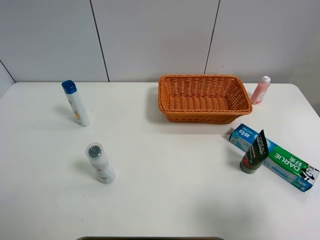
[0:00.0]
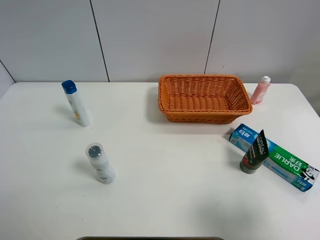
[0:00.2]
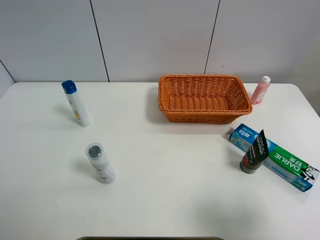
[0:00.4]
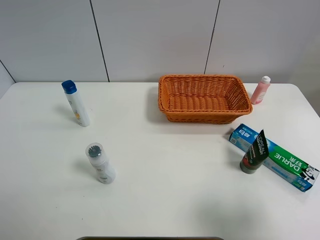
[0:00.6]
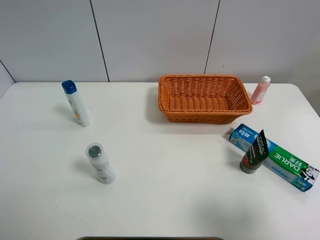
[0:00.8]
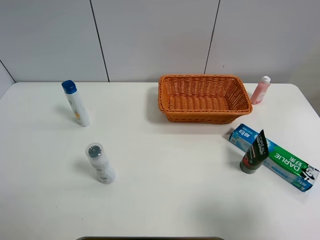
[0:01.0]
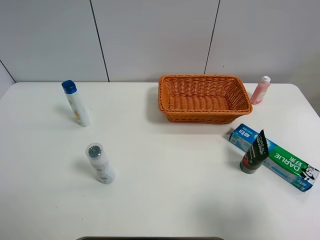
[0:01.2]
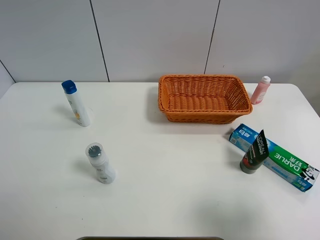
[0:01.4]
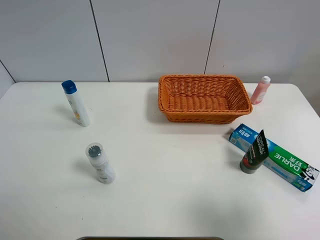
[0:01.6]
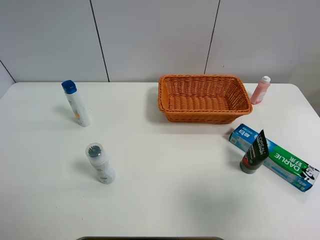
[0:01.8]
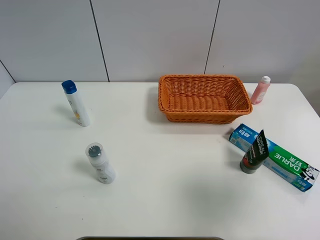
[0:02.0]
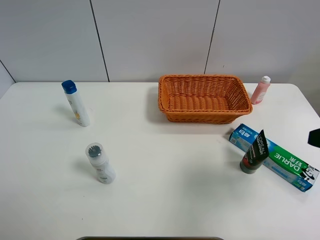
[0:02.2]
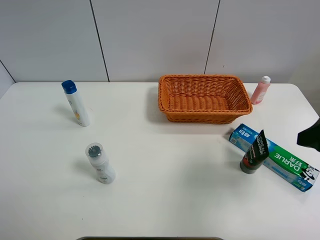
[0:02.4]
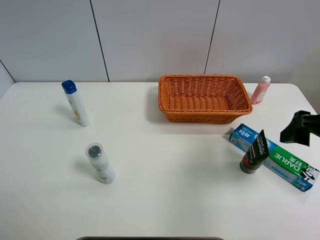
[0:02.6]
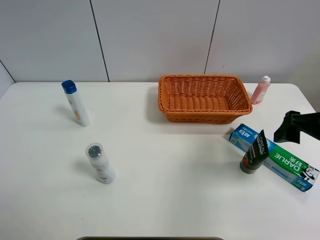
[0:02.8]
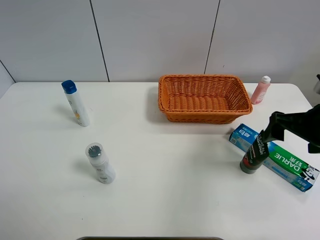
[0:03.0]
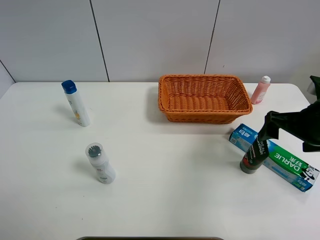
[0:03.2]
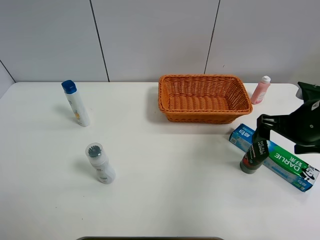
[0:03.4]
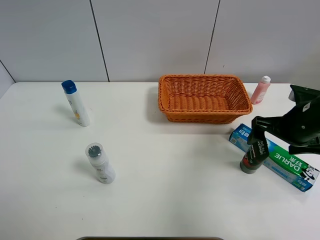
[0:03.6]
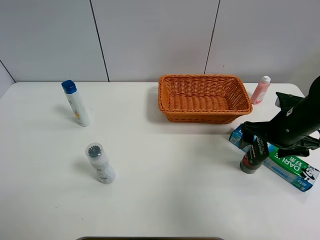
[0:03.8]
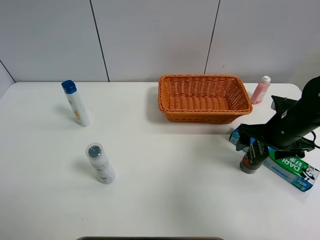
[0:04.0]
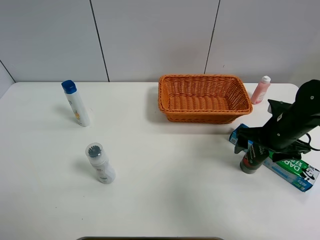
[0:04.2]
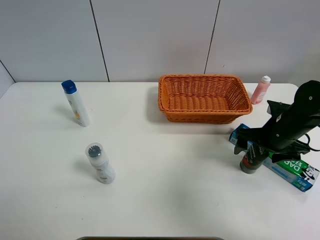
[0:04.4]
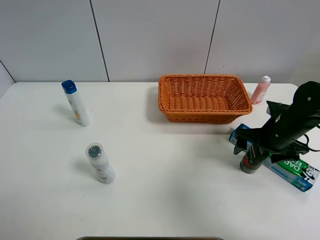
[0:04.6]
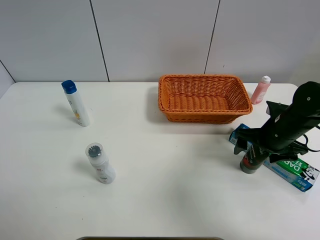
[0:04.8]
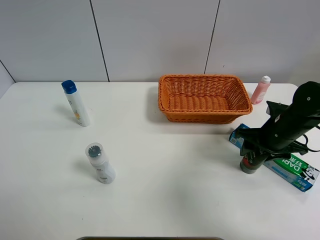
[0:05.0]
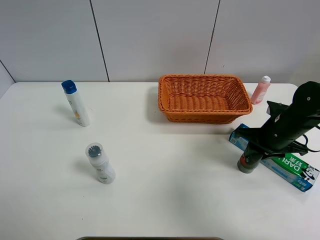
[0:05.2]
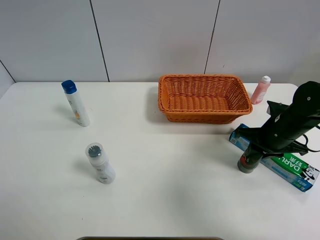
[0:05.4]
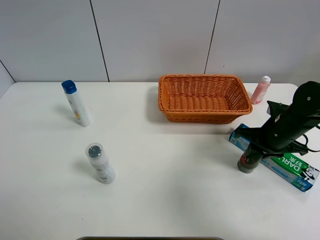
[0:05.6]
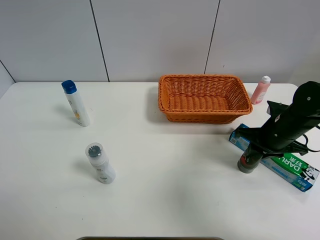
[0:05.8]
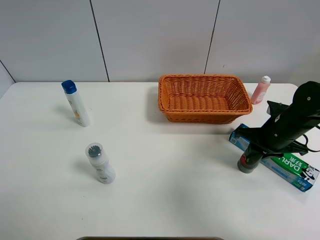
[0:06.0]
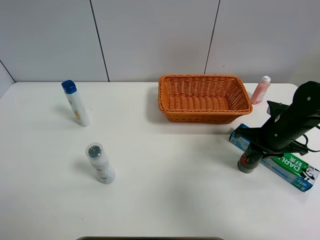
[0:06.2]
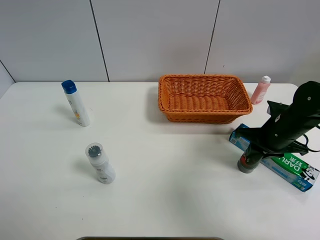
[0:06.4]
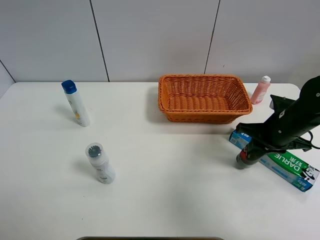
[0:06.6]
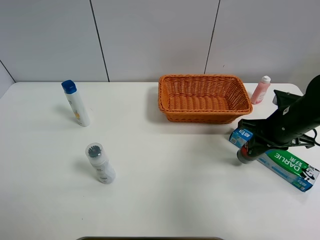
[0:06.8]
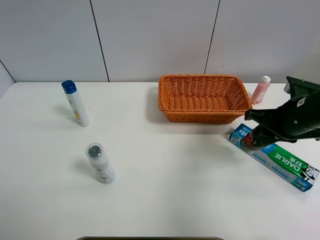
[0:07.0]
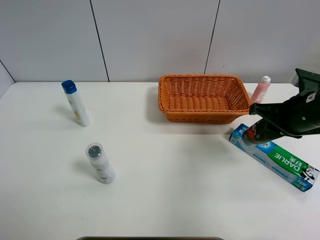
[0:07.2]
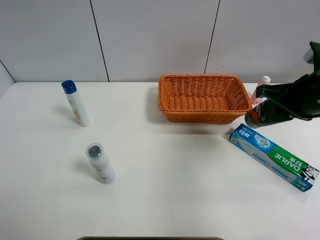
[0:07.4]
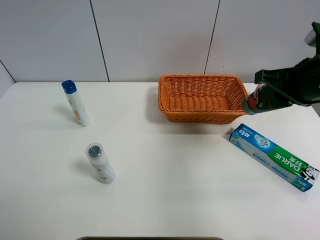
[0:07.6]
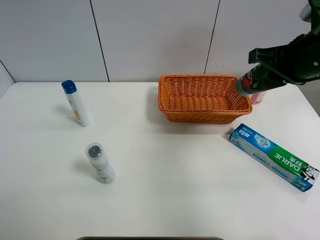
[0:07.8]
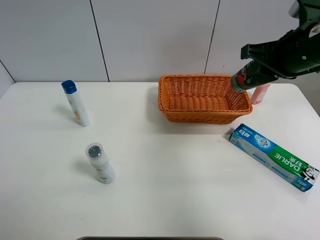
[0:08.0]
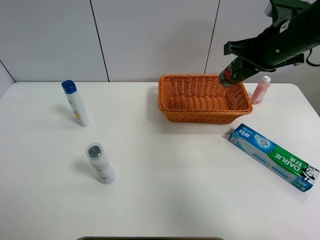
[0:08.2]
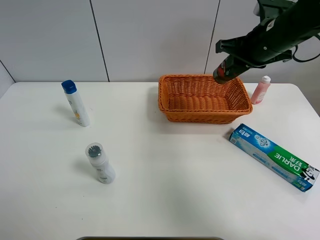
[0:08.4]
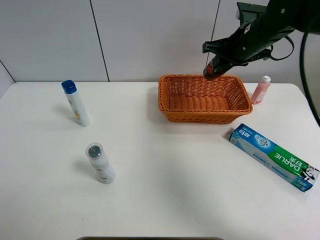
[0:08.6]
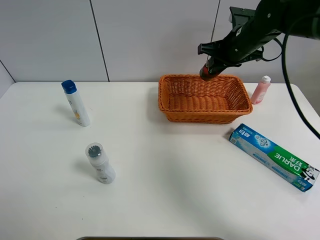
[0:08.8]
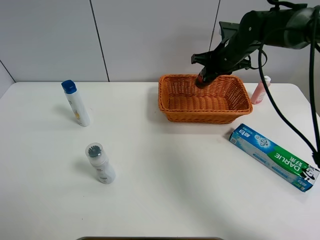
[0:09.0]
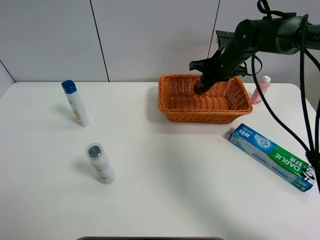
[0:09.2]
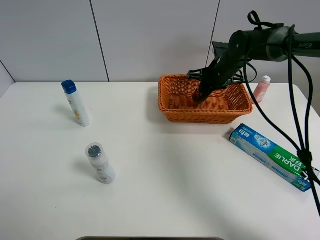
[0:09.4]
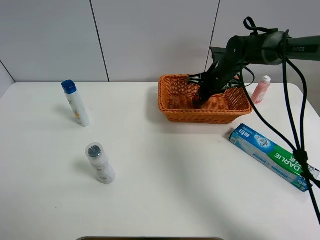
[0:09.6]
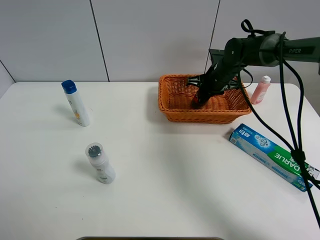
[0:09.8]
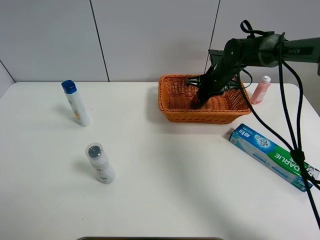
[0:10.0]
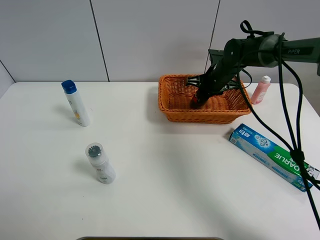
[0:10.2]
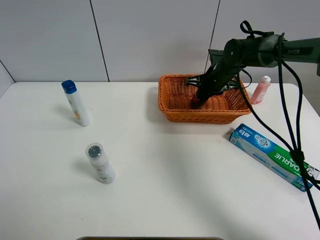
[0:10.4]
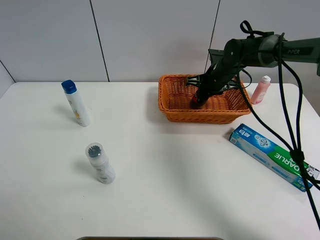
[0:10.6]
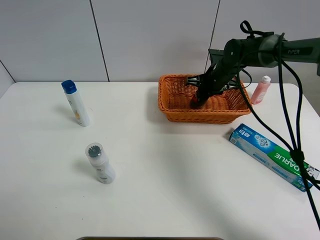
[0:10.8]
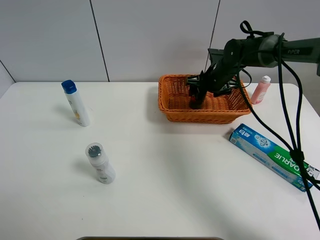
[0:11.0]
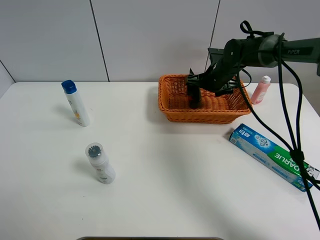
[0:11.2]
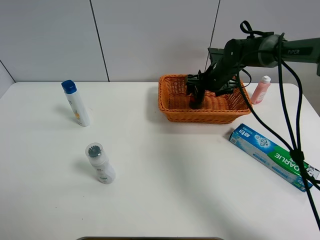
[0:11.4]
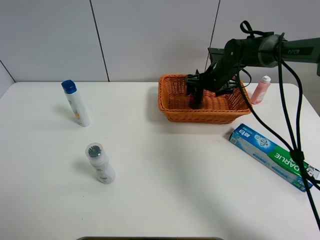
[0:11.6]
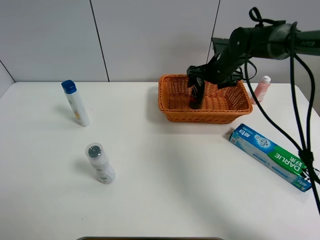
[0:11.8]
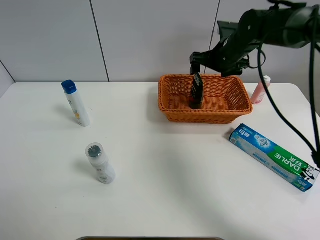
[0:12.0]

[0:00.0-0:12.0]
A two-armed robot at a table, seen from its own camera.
Task of the whole recording: Place the object closest to the toothpaste in the basket.
Step, 0:00.0 to 0:05.4: Grasp the soft facial cleanser with right gripper.
Step, 0:05.6 to 0:12.0: Place the soft facial cleanser in the basket with right gripper.
0:01.6 to 0:03.0: The right gripper goes approximately 20 cm forward.
0:03.0 to 0:04.4: The right gripper heads downward and forward, covering approximately 10 cm.
0:04.4 to 0:06.0: The right gripper closes.
0:06.0 to 0:07.6: The right gripper is displaced upward by some 15 cm.
0:07.6 to 0:09.0: The right gripper is displaced forward and downward by some 20 cm.
0:09.0 to 0:10.4: The right gripper shifts about 5 cm downward.
0:10.4 to 0:12.0: The right gripper goes approximately 10 cm upward, and opens up.

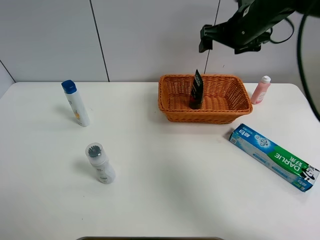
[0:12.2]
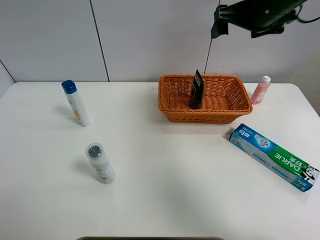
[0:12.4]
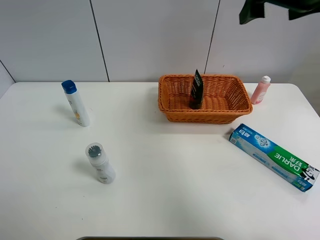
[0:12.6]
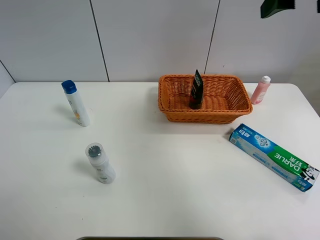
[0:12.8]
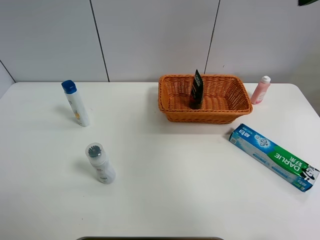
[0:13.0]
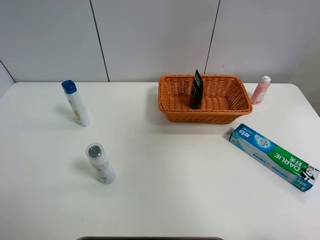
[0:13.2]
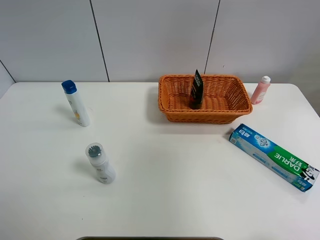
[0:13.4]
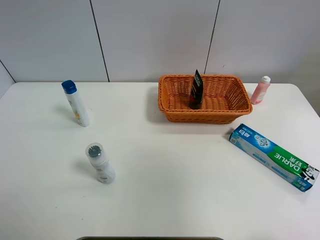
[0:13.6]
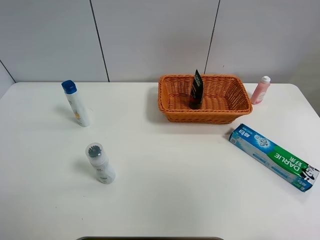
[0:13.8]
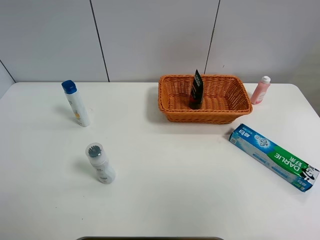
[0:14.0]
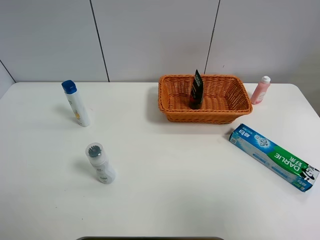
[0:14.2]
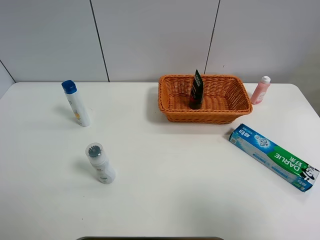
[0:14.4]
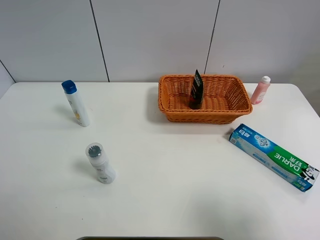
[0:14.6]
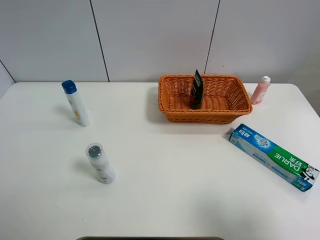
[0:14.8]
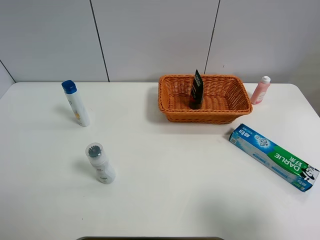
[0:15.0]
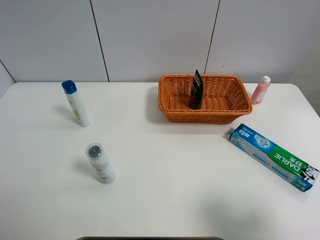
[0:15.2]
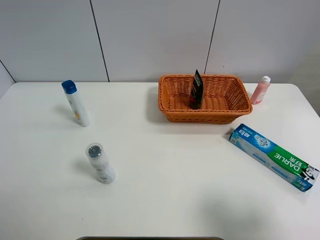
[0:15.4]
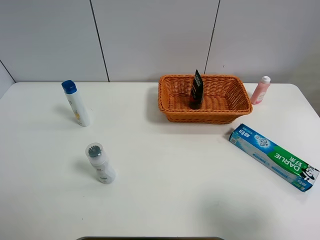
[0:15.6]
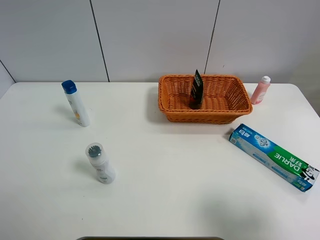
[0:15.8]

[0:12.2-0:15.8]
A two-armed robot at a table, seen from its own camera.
Task of the whole recording: Place the object closest to the toothpaste in the basket.
0:12.2 to 0:14.0: The right gripper heads backward, covering some 40 cm.
0:14.0 to 0:15.8: The right gripper is displaced downward by about 15 cm.

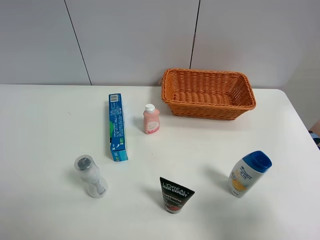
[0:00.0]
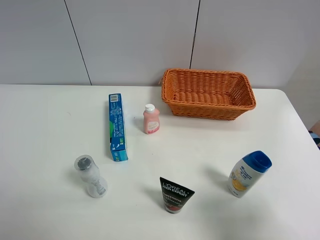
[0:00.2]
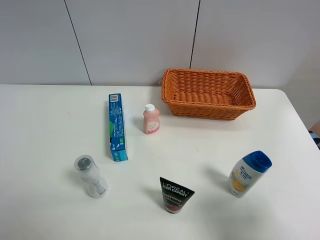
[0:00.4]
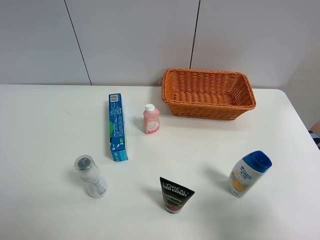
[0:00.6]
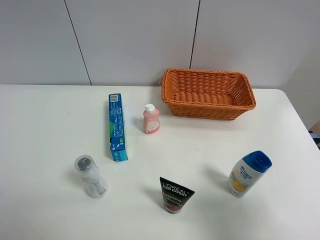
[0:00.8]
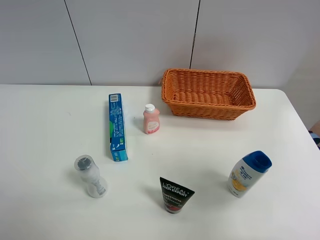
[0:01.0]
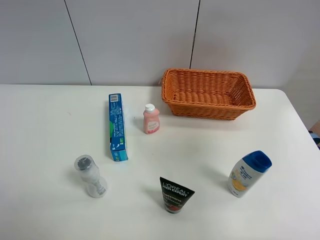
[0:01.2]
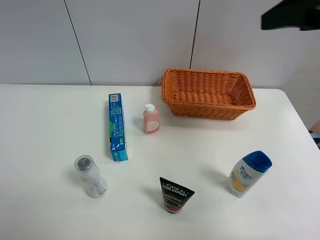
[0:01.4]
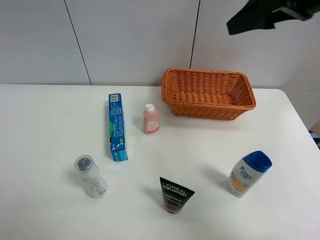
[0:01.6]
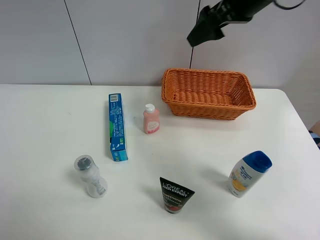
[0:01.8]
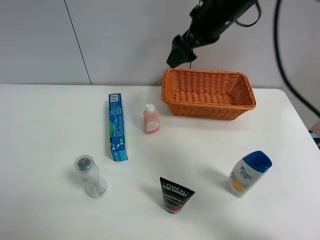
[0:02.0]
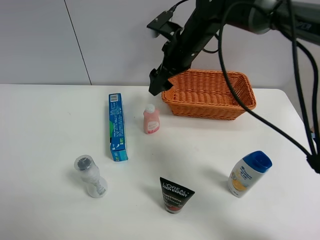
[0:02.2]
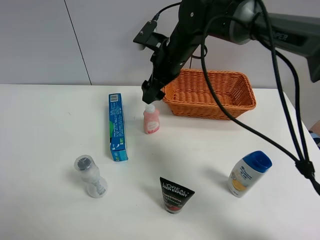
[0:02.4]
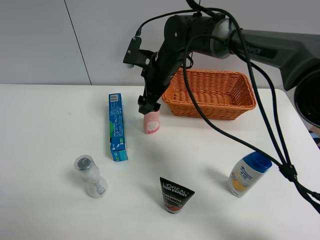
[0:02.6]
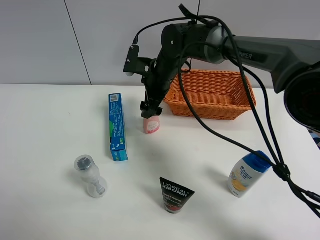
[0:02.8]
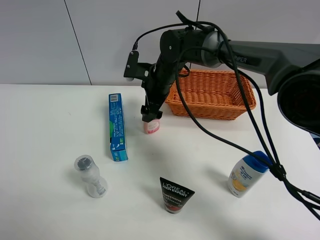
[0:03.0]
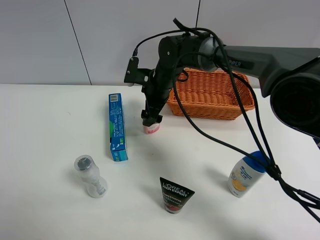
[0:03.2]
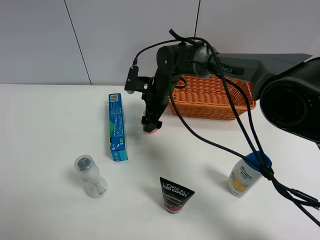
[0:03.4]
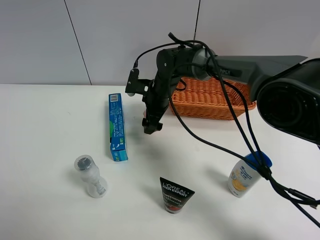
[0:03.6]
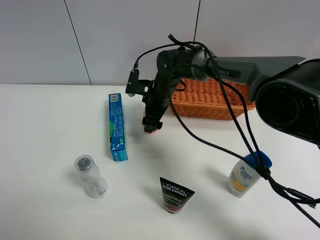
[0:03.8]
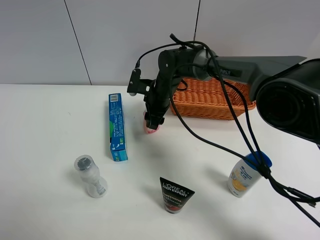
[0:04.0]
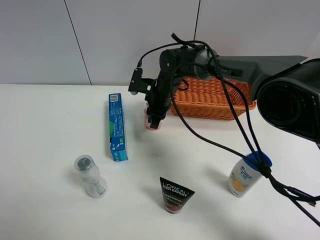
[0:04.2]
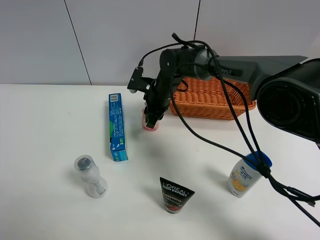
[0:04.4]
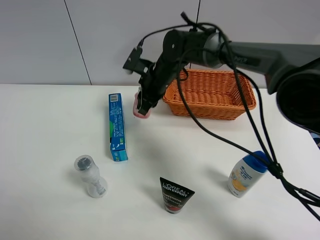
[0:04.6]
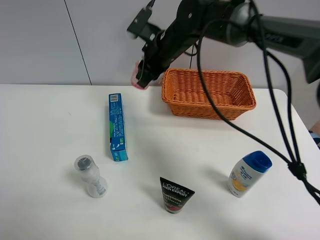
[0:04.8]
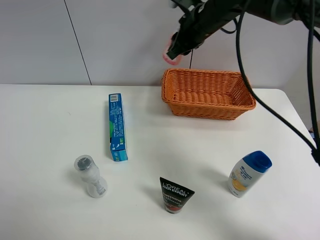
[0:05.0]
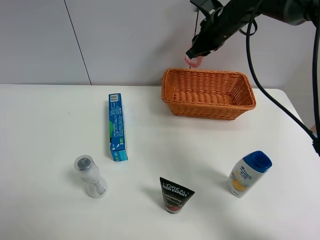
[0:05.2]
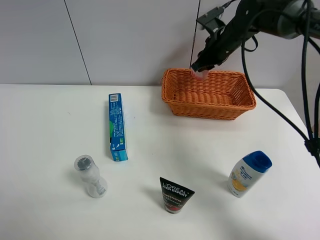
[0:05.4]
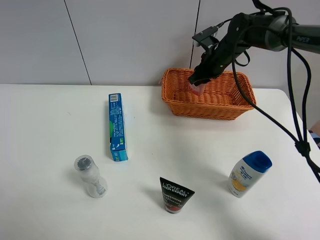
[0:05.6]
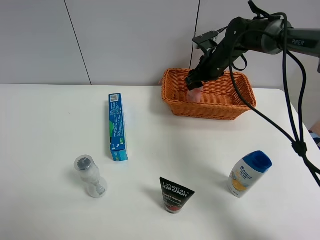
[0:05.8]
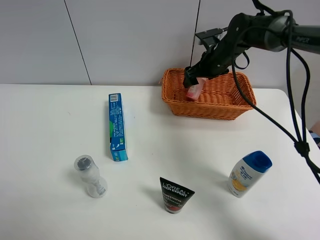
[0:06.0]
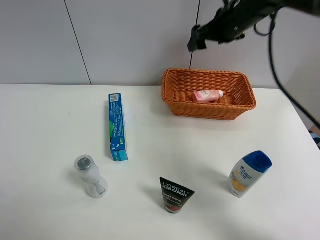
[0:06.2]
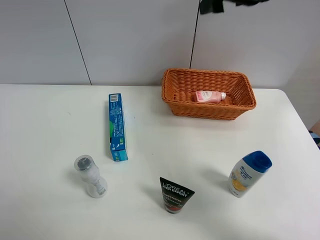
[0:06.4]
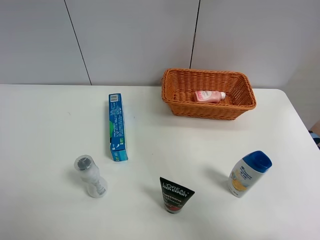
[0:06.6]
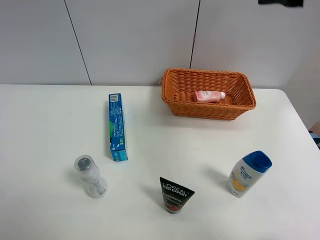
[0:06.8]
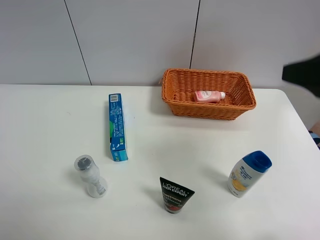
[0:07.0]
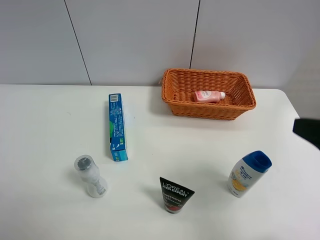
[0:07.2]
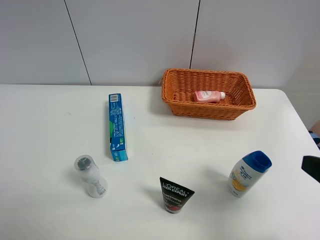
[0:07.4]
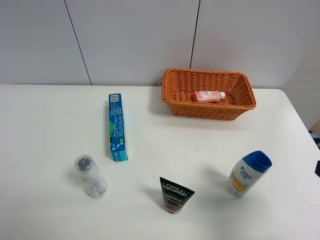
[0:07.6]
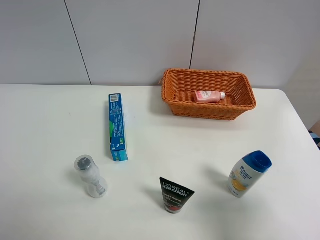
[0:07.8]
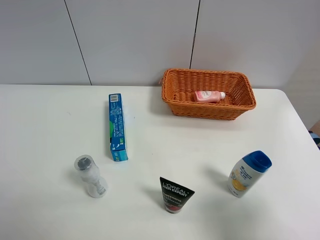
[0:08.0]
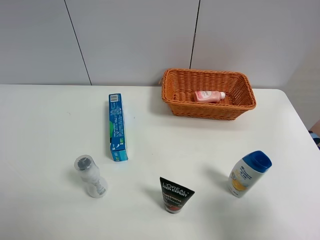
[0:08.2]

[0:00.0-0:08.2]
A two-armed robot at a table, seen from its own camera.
Task of the whole recording: Place the object closest to the toothpaste in the basket.
Step, 0:00.0 to 0:04.0: Grasp the pink laundry detergent with right gripper.
Step, 0:04.2 to 0:06.0: Place the pink laundry detergent in the basket with right gripper.
0:01.6 to 0:03.2: The right gripper moves to the left, downward and forward, approximately 35 cm.
0:03.2 to 0:05.0: The right gripper goes some 15 cm upward and to the right, and closes its fingers.
0:05.0 to 0:06.6: The right gripper is displaced upward, to the right and backward by about 20 cm, and opens its fingers.
0:06.6 to 0:08.2: The right gripper goes about 35 cm backward and downward.
